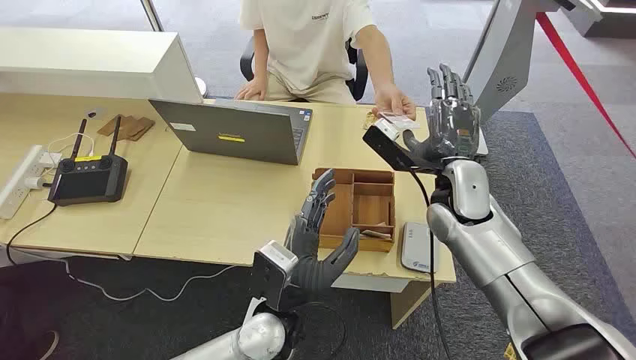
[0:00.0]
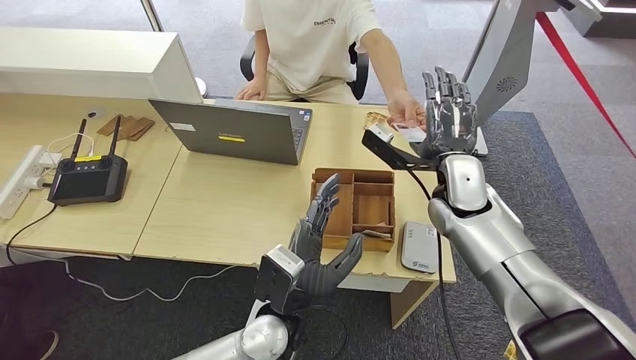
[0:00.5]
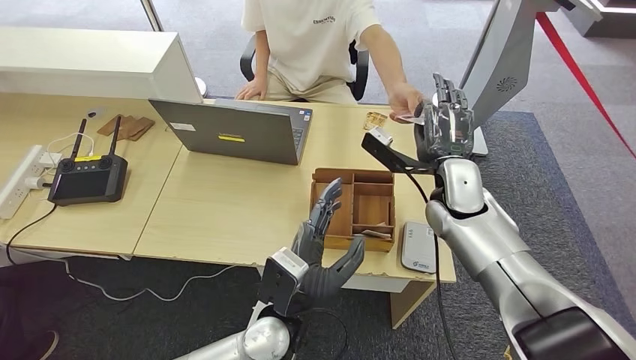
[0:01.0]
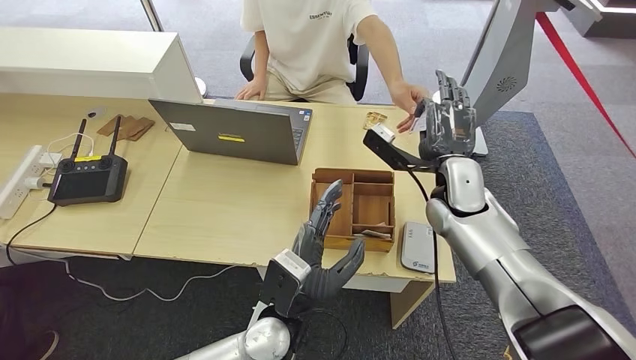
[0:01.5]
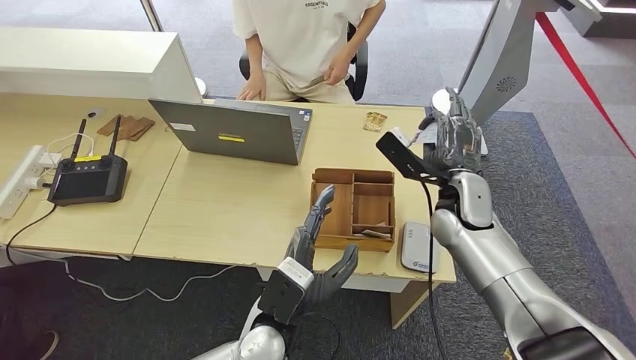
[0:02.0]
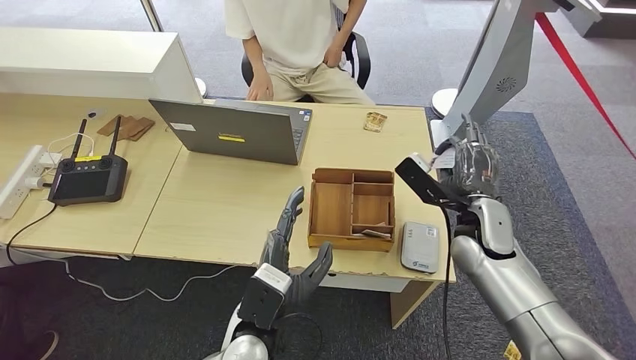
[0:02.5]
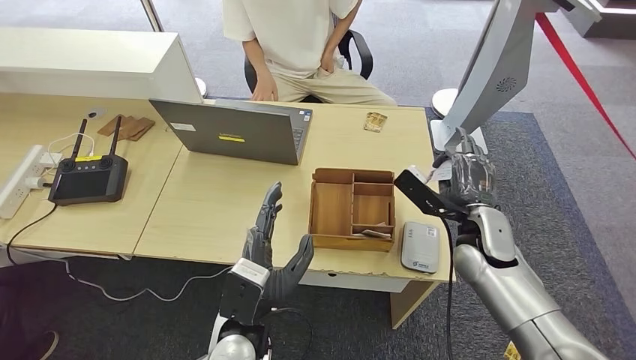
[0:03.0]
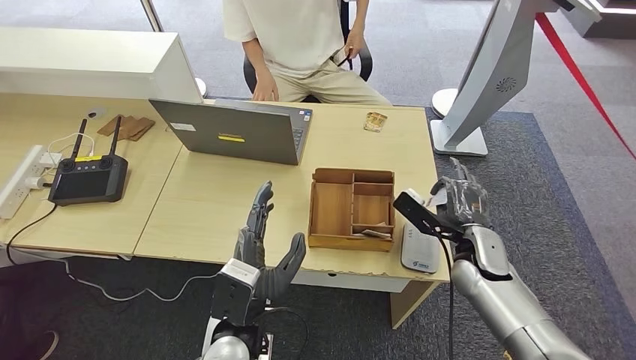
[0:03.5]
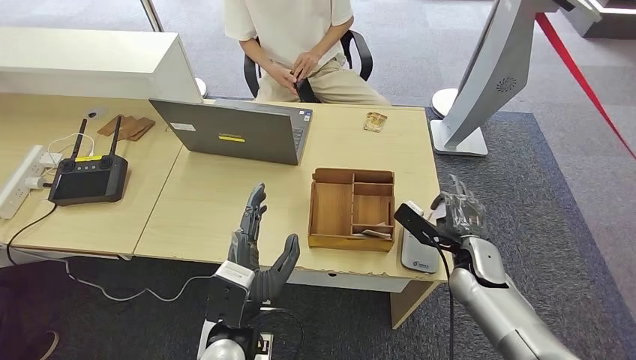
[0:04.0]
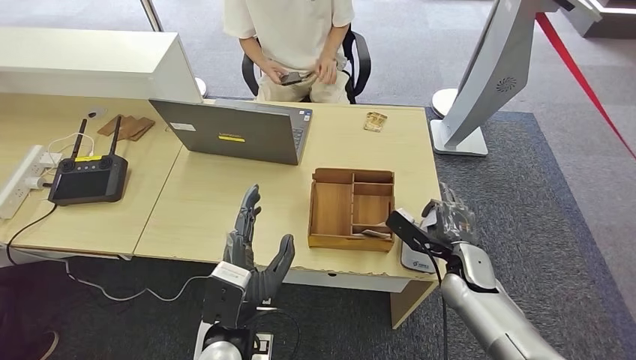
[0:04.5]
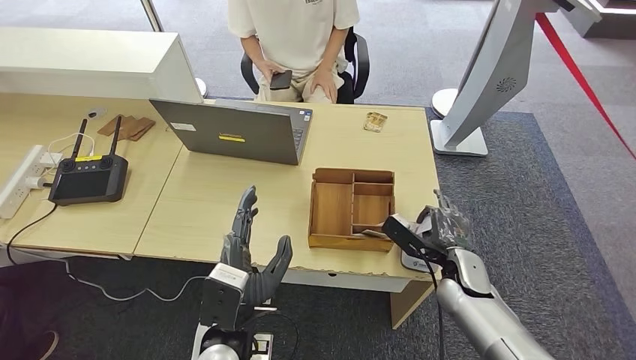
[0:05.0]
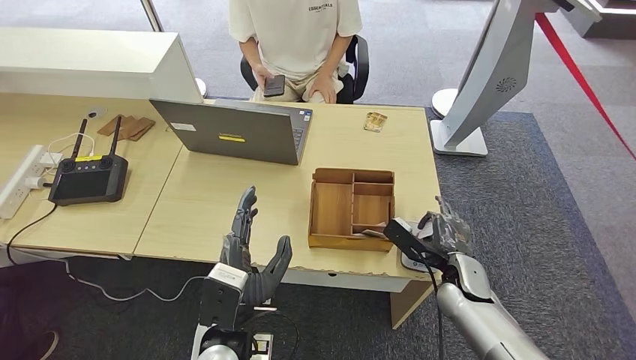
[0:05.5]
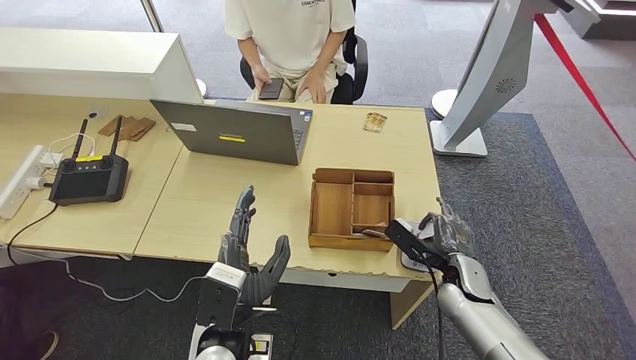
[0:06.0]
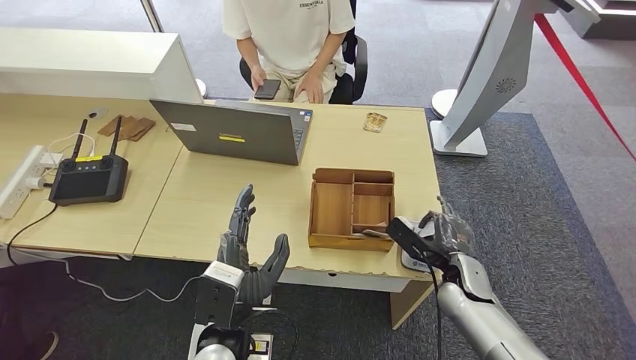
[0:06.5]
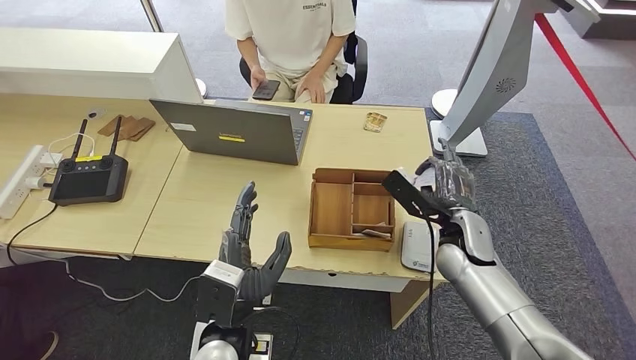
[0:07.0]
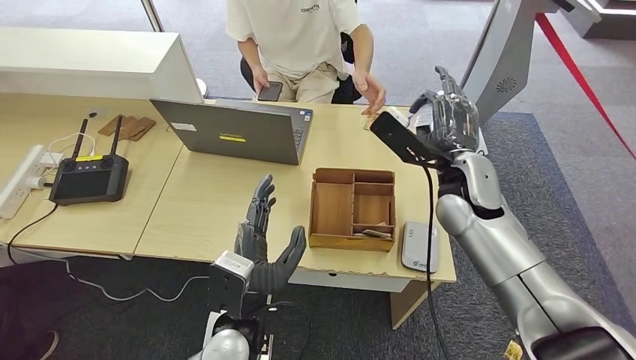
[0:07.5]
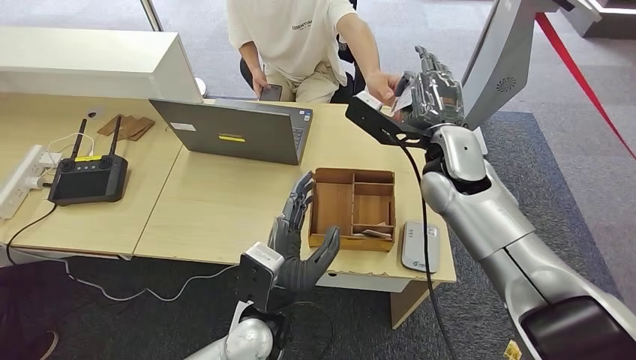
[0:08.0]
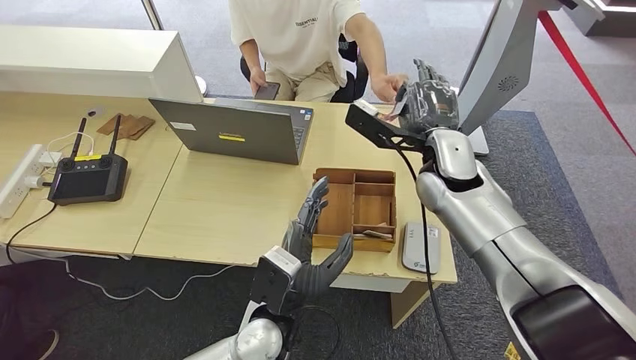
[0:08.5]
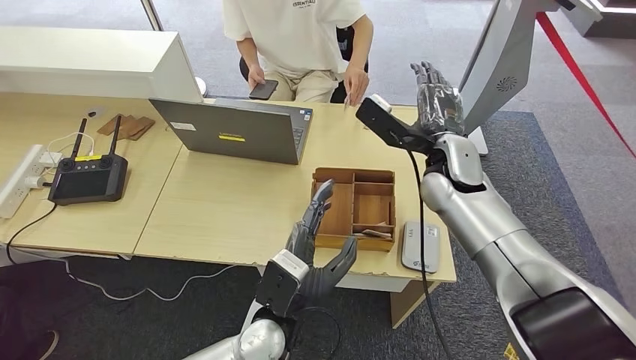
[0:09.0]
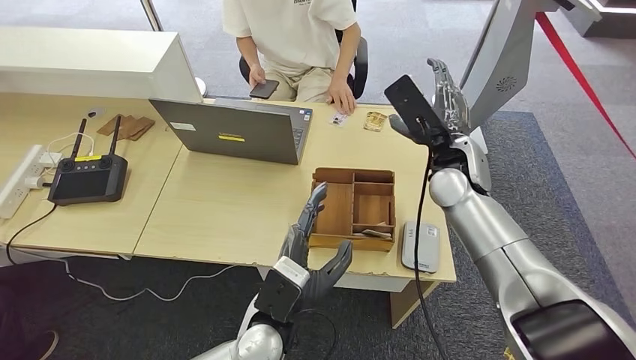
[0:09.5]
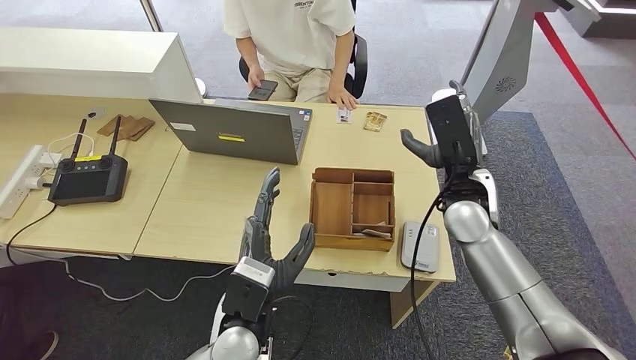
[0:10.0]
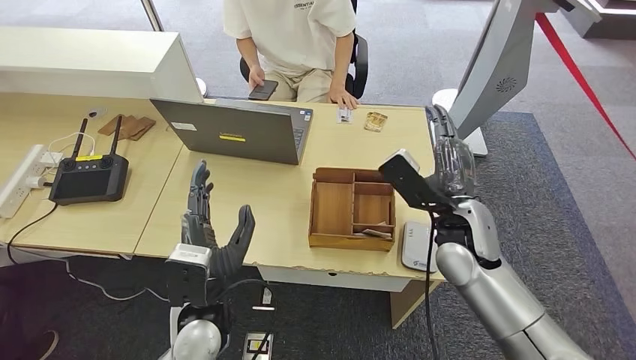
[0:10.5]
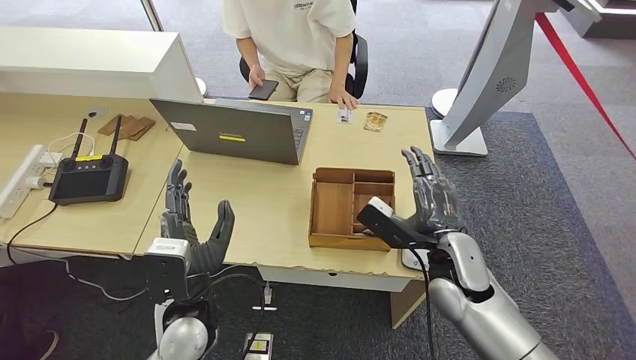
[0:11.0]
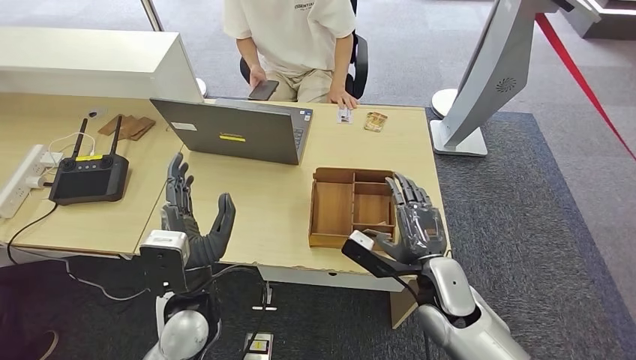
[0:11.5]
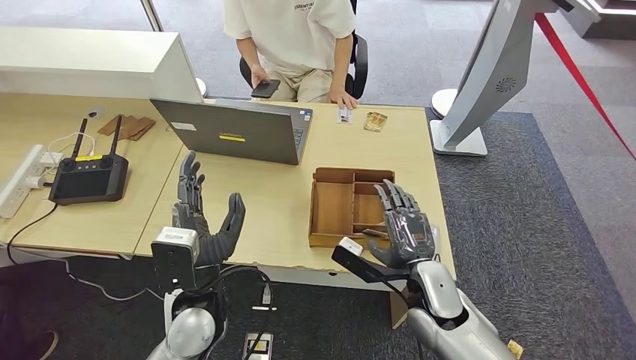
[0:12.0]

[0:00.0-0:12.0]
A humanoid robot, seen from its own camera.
Step, 0:00.0 to 0:02.0: Take the ID card from the person's hand.
Step, 0:03.0 to 0:06.5: Place the ID card on the card reader.
Step, 0:07.5 to 0:09.0: Hand the ID card to the person.
0:02.0 to 0:04.0: The right hand moves downward, to the right and backward, approximately 15 cm; the left hand shifts approximately 5 cm to the left.
0:04.0 to 0:06.0: The hands move only a little.
0:08.0 to 0:10.0: The right hand is displaced downward by about 5 cm.
0:10.0 to 0:12.0: The left hand heads to the left, covering approximately 5 cm, while the right hand shifts some 15 cm downward and backward.

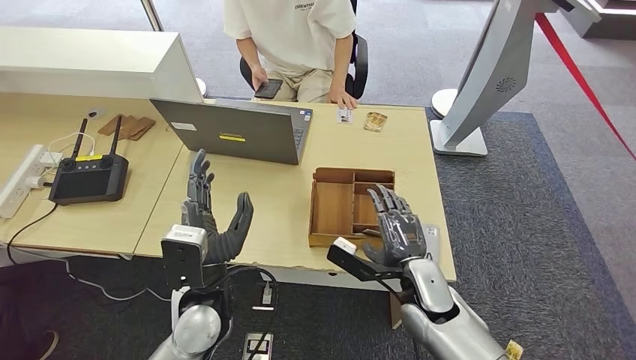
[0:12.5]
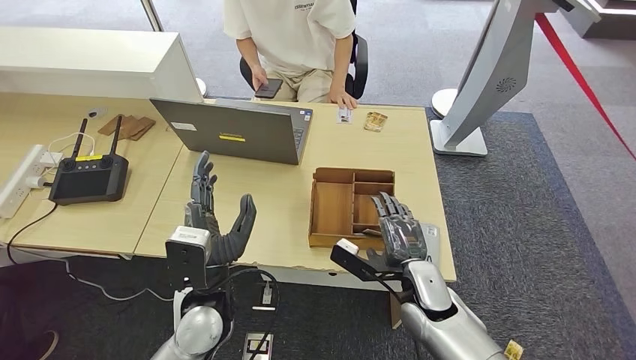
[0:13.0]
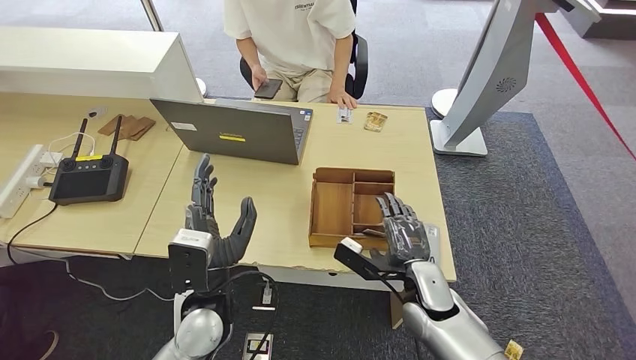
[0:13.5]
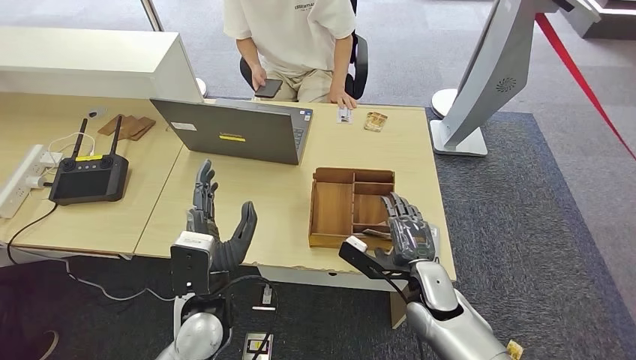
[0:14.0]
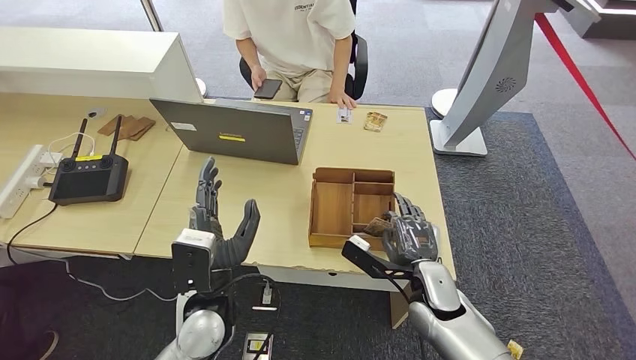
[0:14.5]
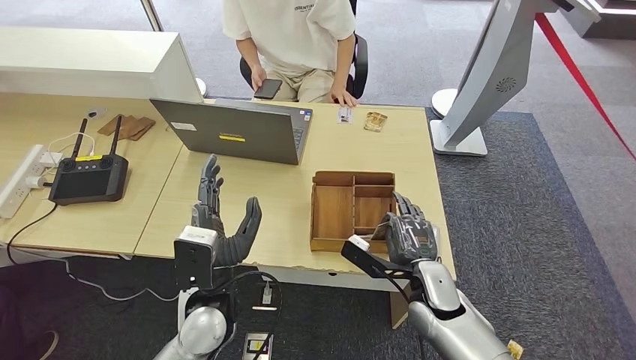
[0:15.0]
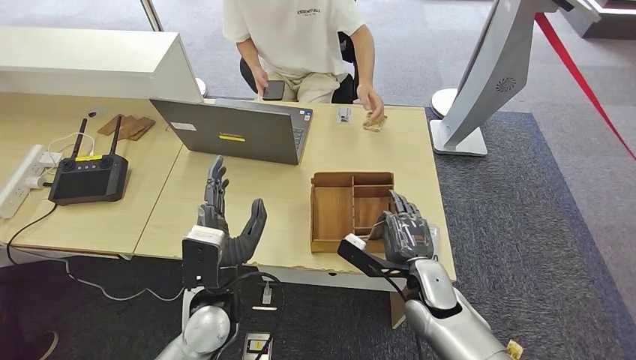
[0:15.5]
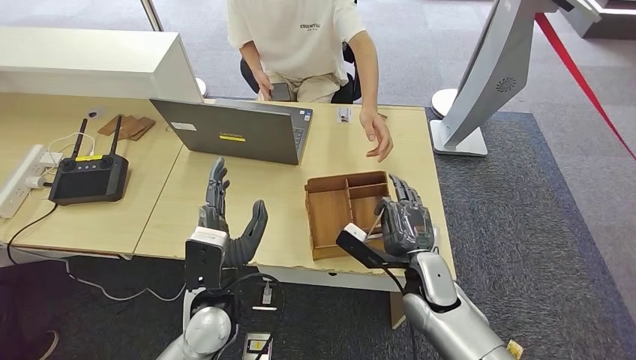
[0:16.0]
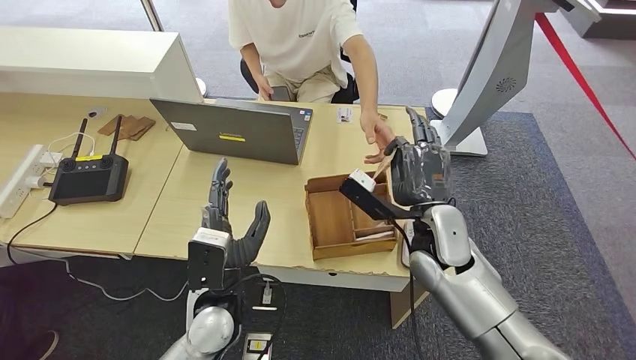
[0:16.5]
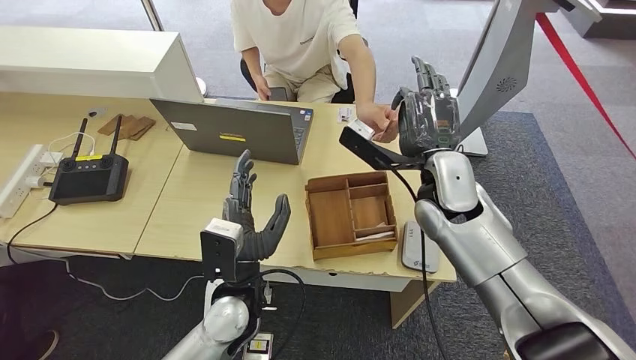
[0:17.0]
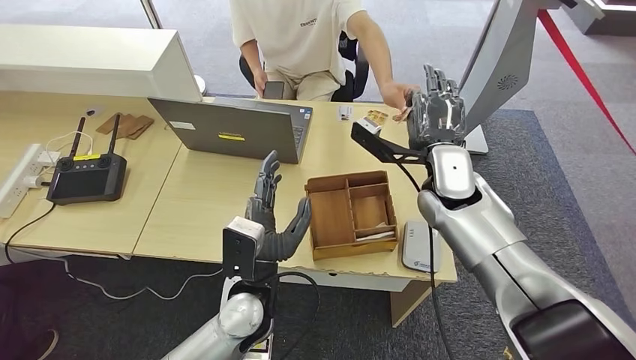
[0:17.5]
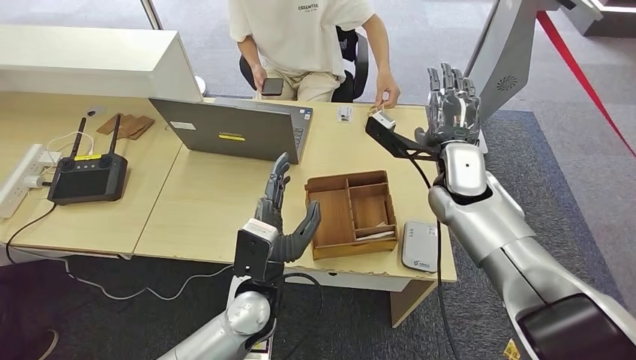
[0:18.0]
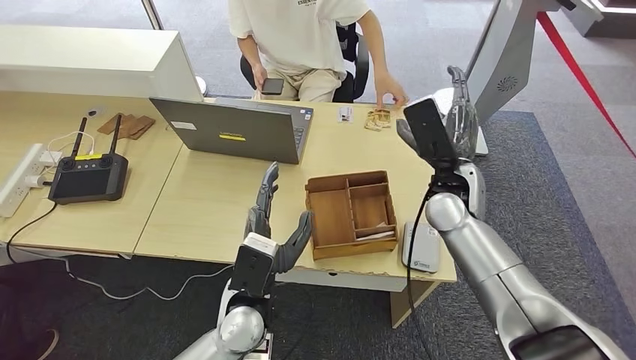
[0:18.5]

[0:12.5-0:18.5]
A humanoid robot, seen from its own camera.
Step, 0:14.0 to 0:16.0: Pick up the room key from the key card box.
Step, 0:16.5 to 0:18.5: Hand the room key to the person.
0:12.5 to 0:14.5: The hands move only a little.
0:14.5 to 0:16.5: The right hand shifts approximately 10 cm upward.

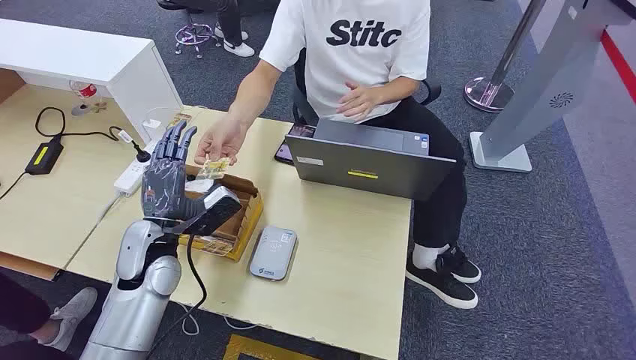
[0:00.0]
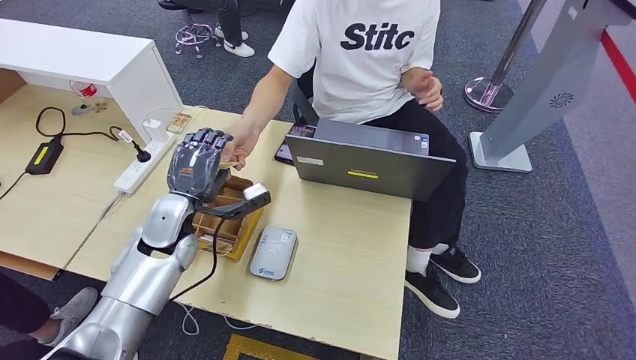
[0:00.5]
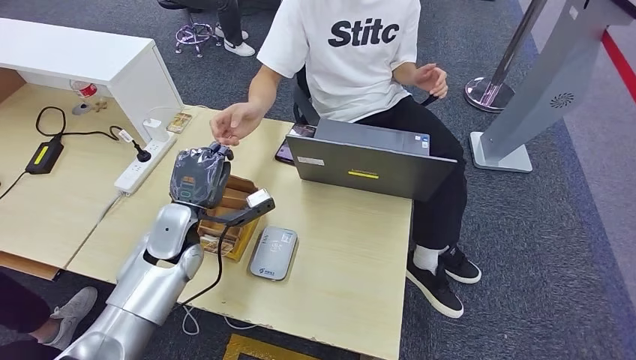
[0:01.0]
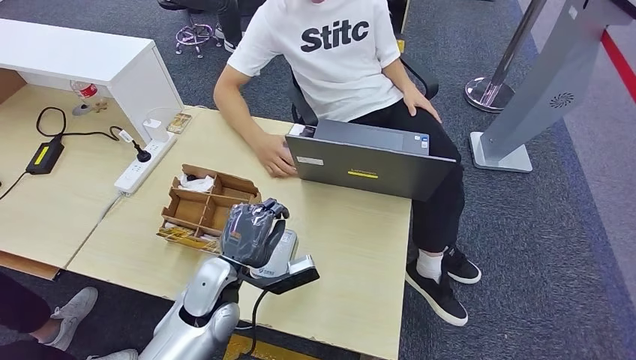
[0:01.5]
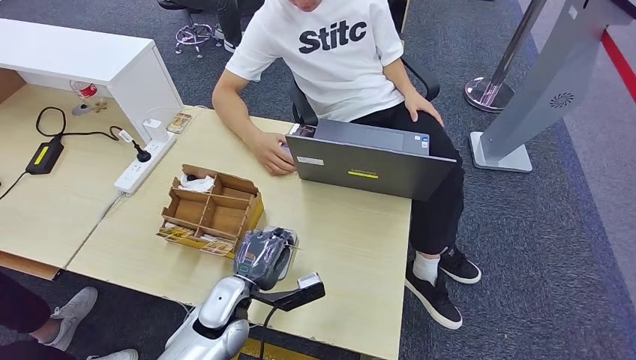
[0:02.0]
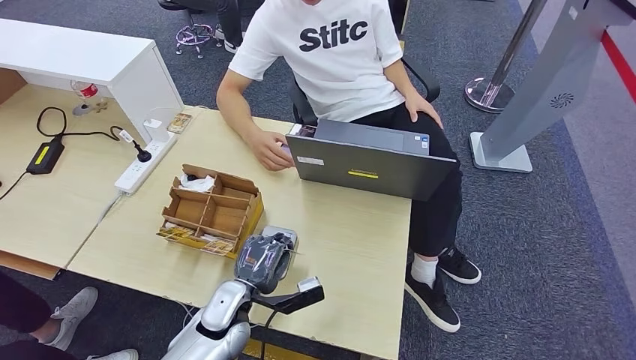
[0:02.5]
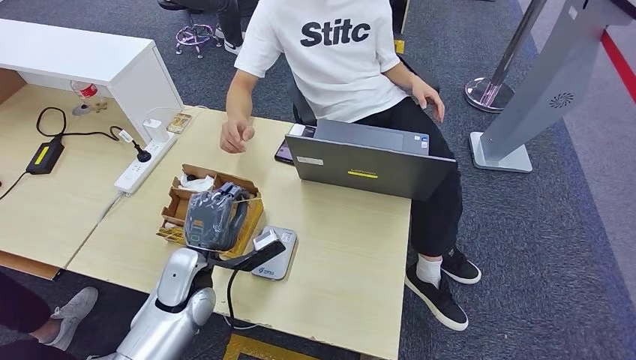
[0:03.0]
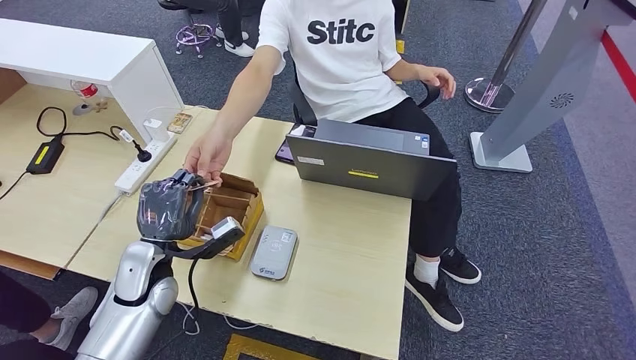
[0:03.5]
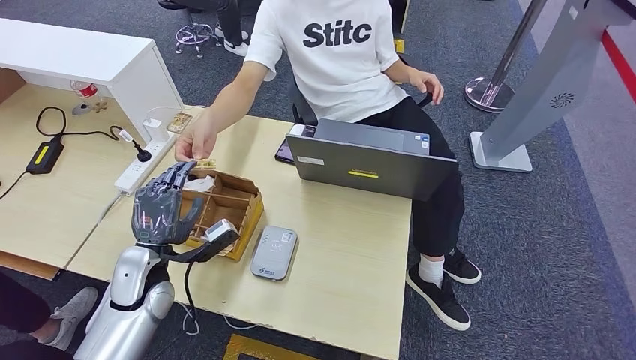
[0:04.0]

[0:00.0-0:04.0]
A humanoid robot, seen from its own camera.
Step, 0:00.0 to 0:01.0: Take the ID card from the person's hand.
Step, 0:01.5 to 0:02.5: Place the ID card on the card reader.
0:02.0 to 0:04.0: The left hand travels to the left and upward by about 15 cm.
